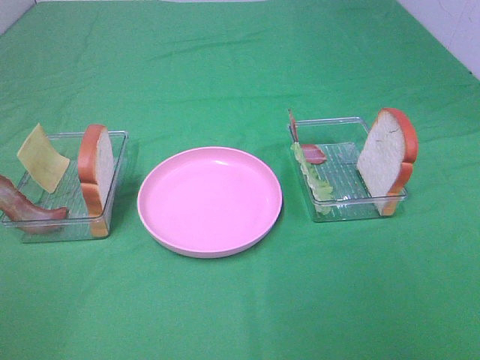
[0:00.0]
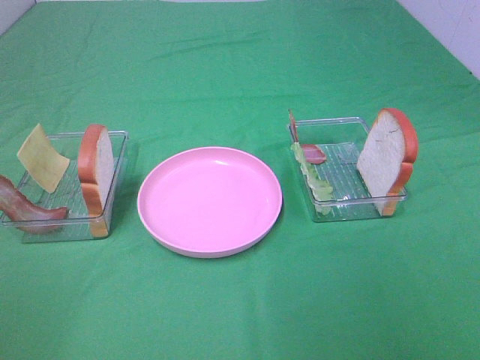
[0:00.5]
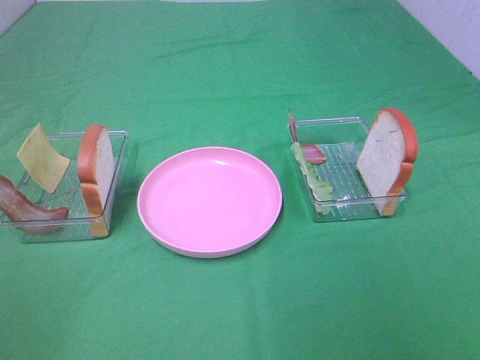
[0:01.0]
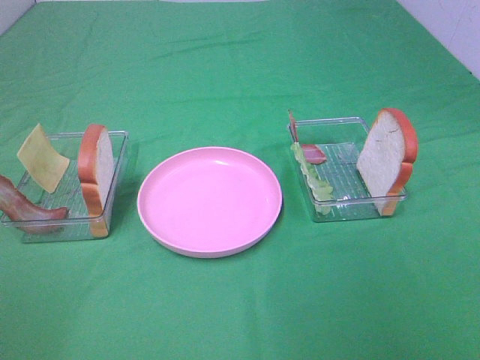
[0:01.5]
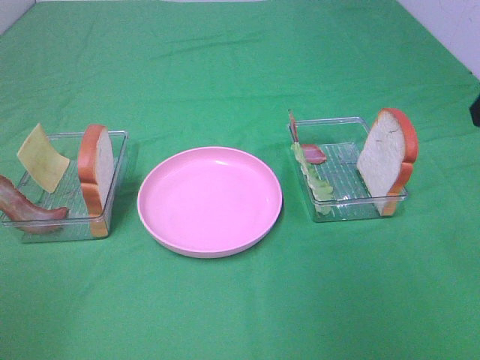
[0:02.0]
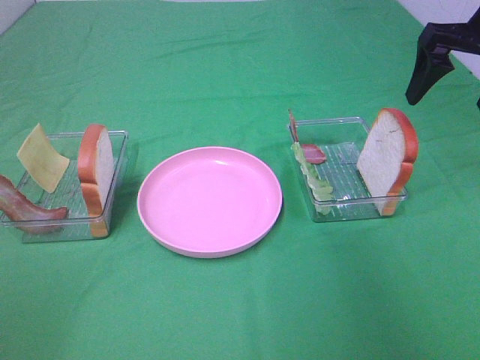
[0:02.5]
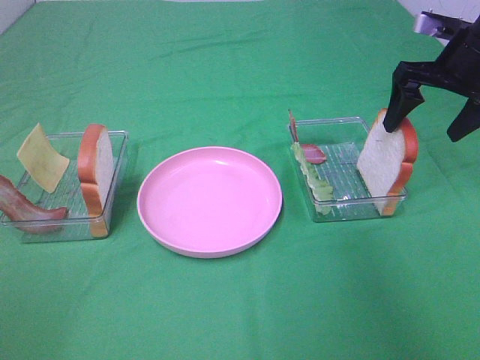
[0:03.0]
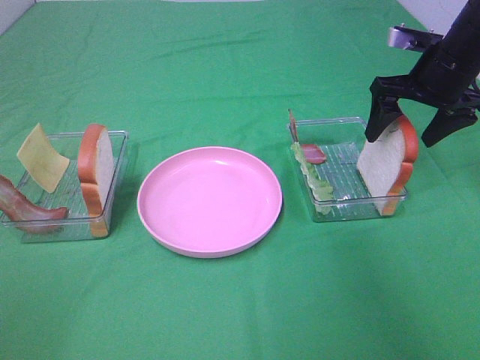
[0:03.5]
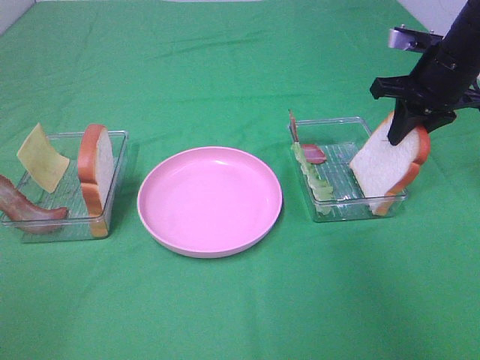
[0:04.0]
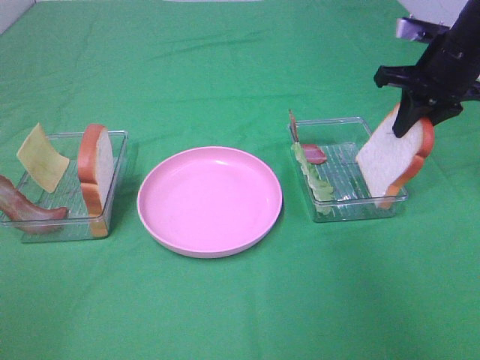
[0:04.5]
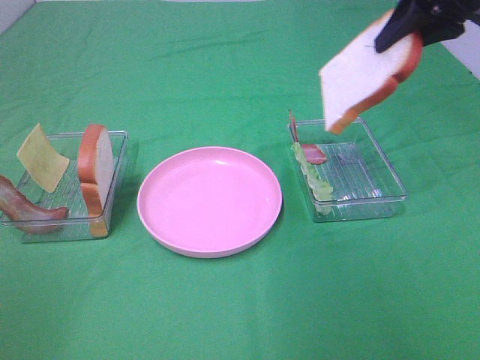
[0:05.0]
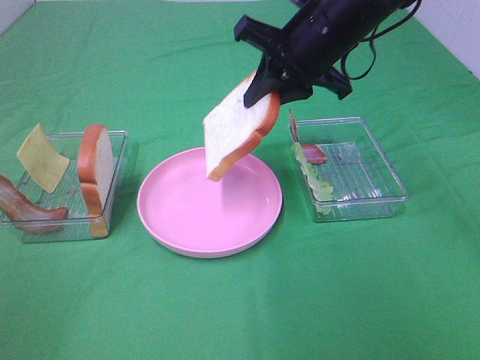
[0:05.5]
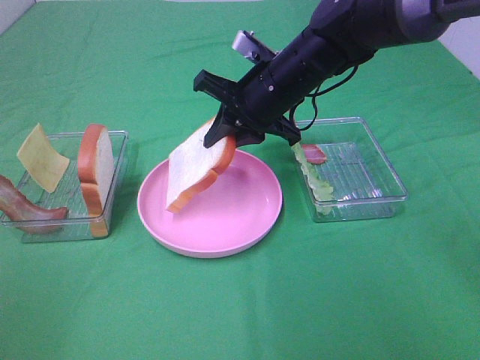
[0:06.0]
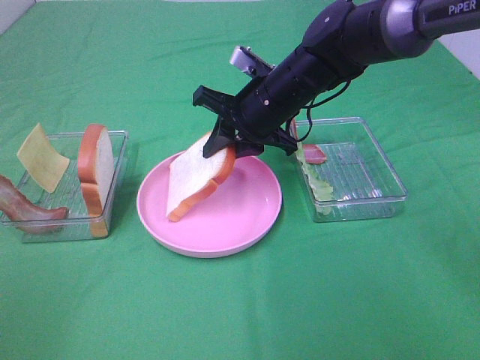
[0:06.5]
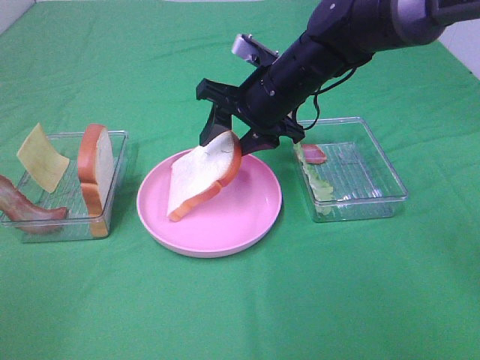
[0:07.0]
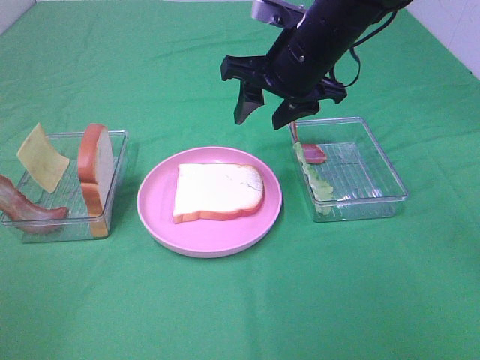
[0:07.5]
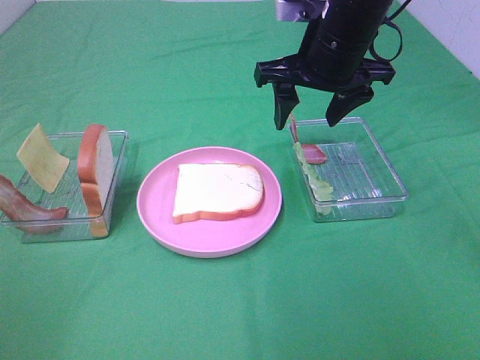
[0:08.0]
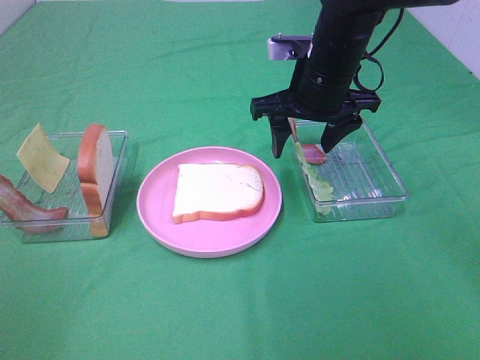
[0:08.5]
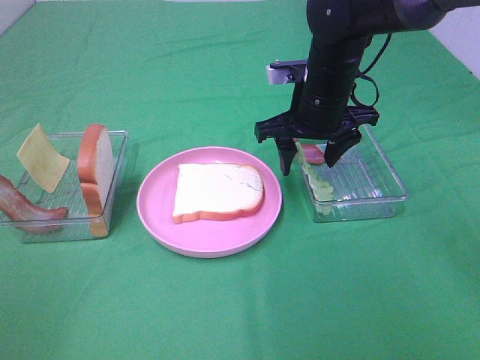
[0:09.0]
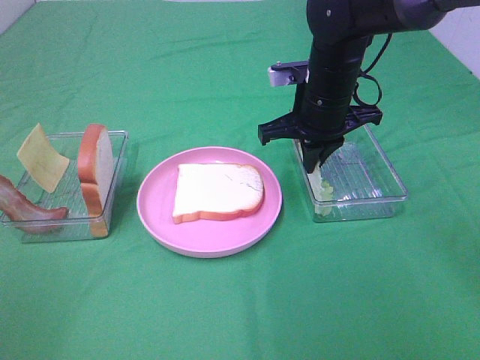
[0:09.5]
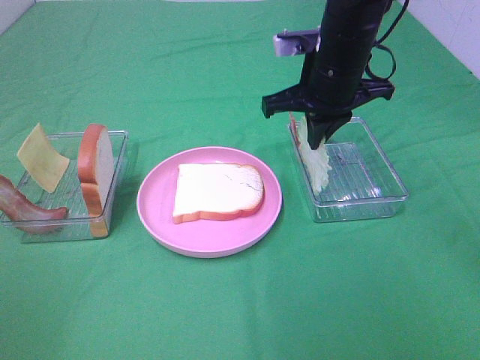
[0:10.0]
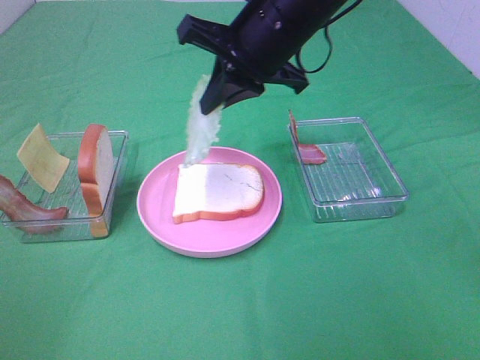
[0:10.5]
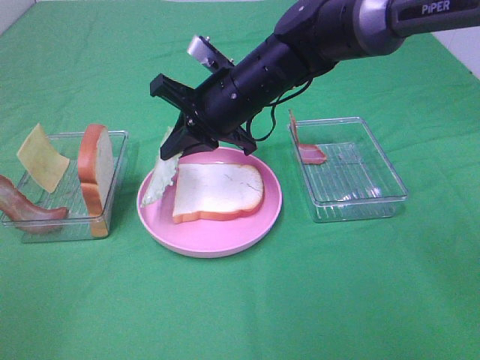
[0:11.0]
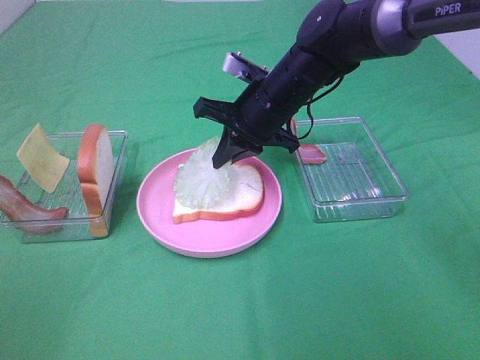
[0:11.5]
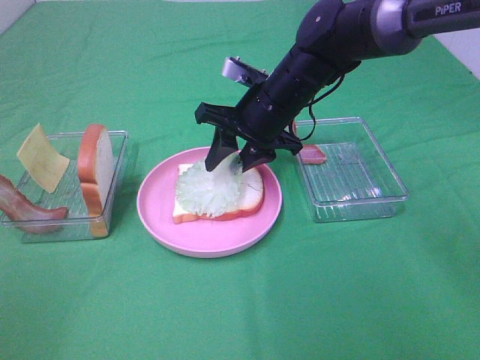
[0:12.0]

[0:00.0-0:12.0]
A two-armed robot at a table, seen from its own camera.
Task of the whole recording: Make sandwiches.
Step, 0:00.0 to 0:04.0: Right hand:grab the bread slice.
Step, 0:04.5 to 0:07.0: Right hand:place the bread slice on the plate.
Step, 0:07.5 to 0:09.5: Right hand:grab the lettuce slice.
0:02.0 to 0:04.0: The right gripper shifts about 25 cm forward and downward, and closes.
0:04.0 to 0:06.0: The right gripper is displaced to the left by approximately 20 cm.
0:06.0 to 0:08.0: The right gripper heads upward, covering roughly 5 cm, and opens up.
0:08.0 to 0:10.0: The right gripper moves some 10 cm downward and comes back, and closes.
0:10.0 to 0:12.0: The right gripper heads downward and to the left, covering roughly 10 cm, and opens up.

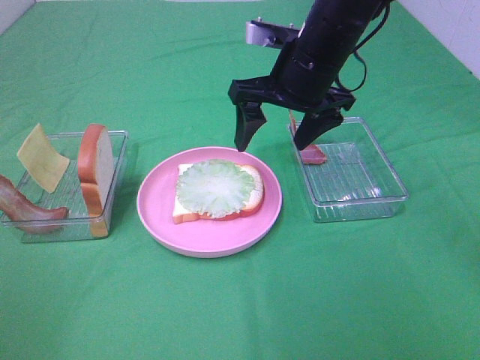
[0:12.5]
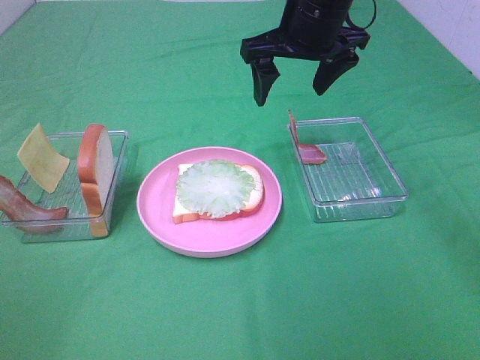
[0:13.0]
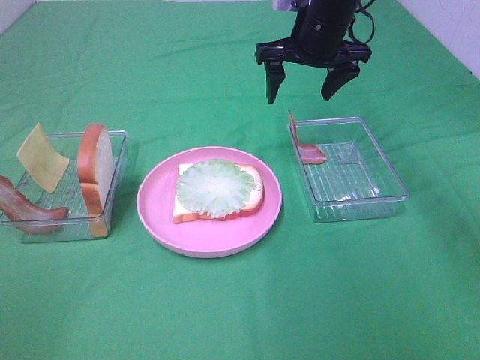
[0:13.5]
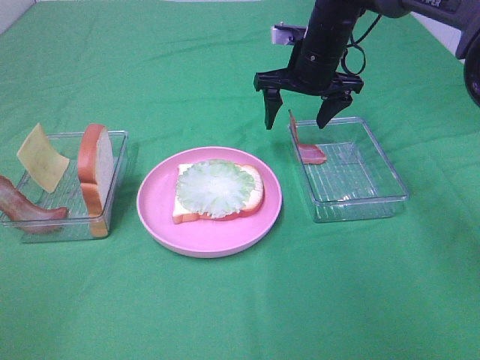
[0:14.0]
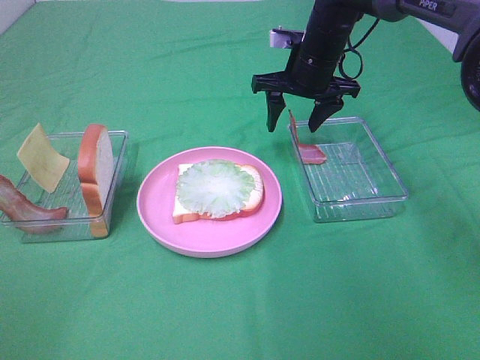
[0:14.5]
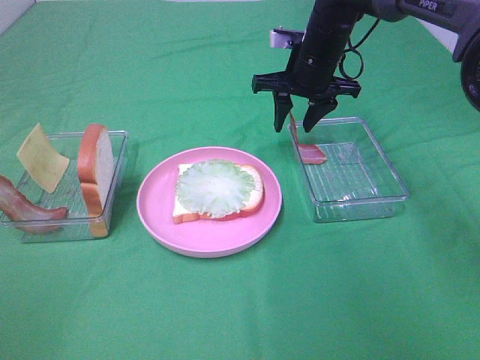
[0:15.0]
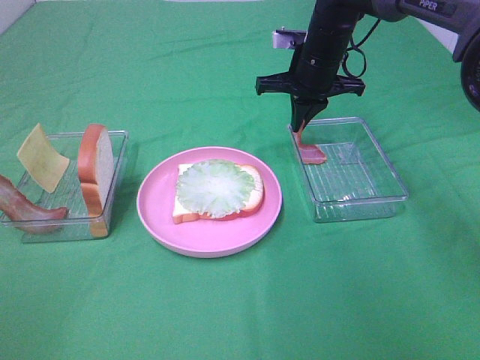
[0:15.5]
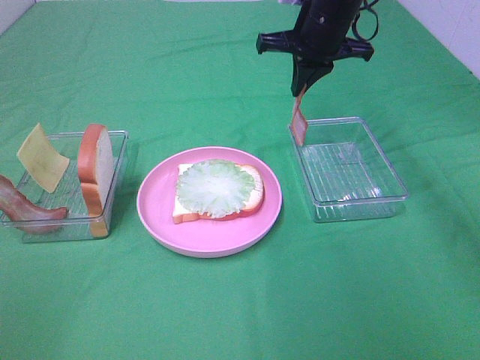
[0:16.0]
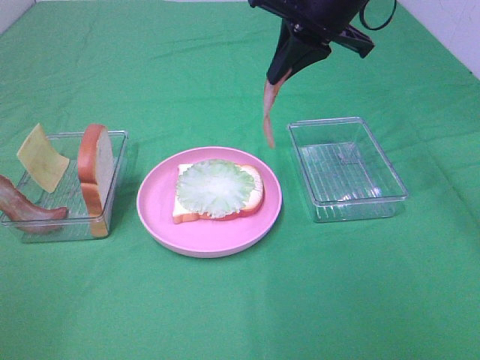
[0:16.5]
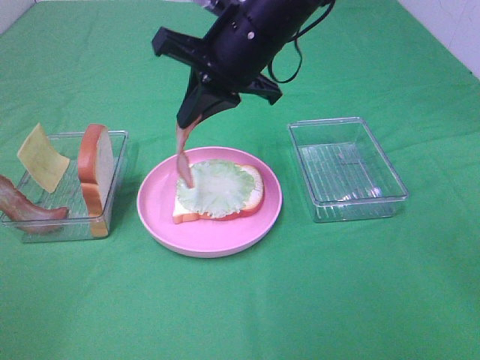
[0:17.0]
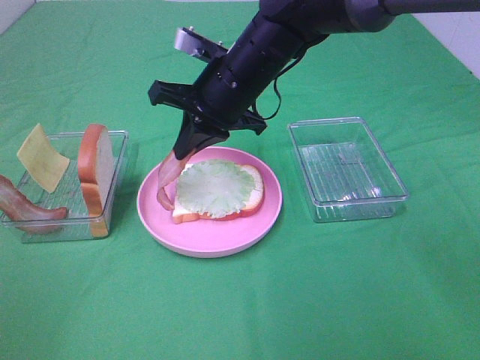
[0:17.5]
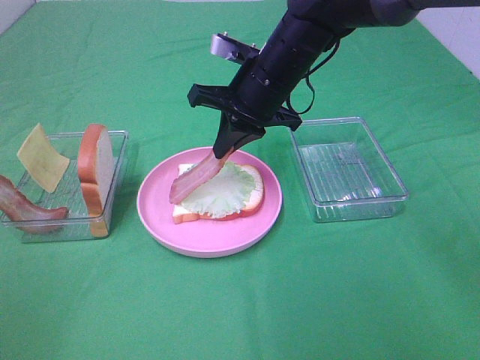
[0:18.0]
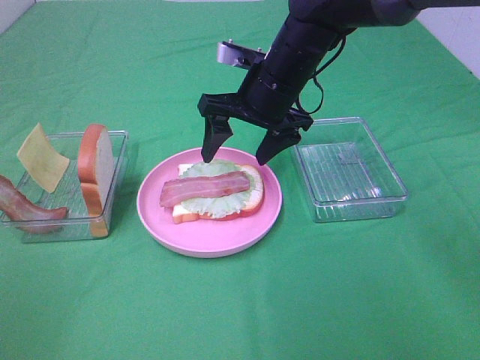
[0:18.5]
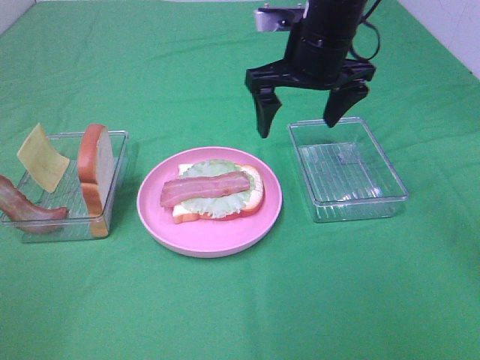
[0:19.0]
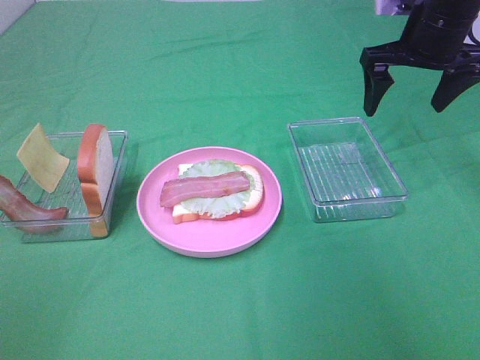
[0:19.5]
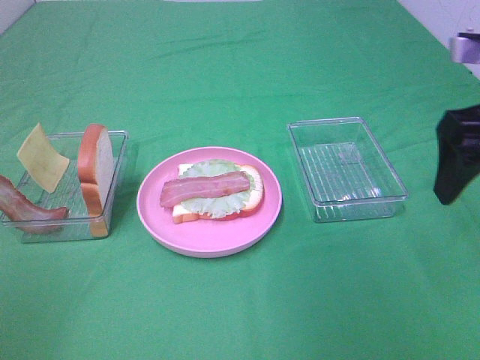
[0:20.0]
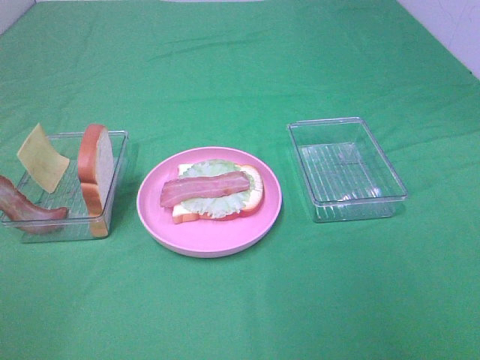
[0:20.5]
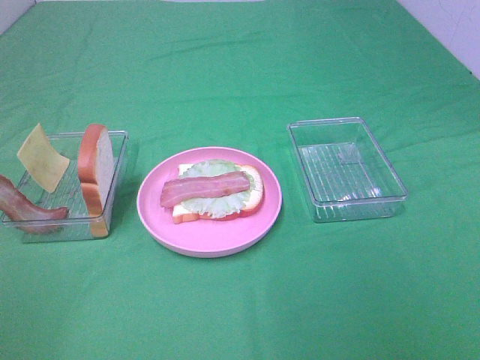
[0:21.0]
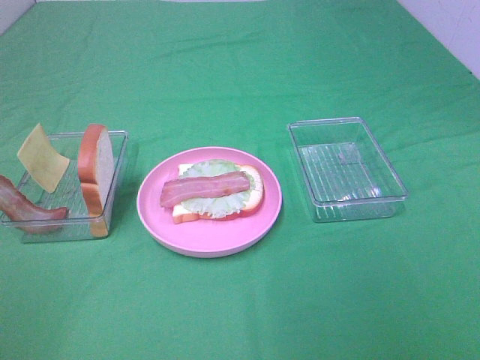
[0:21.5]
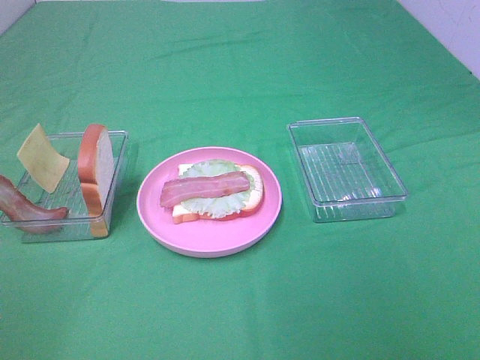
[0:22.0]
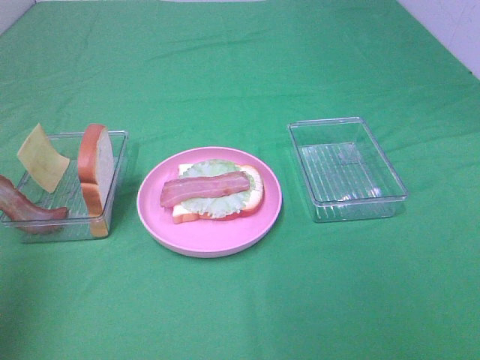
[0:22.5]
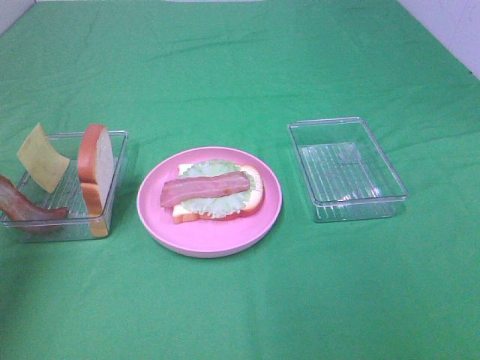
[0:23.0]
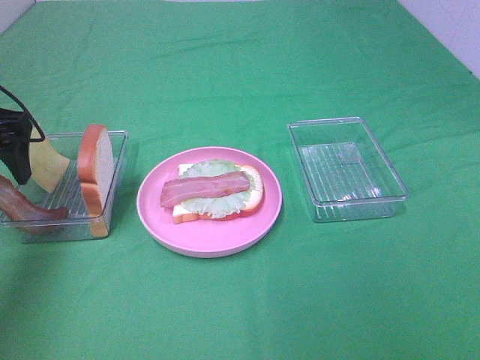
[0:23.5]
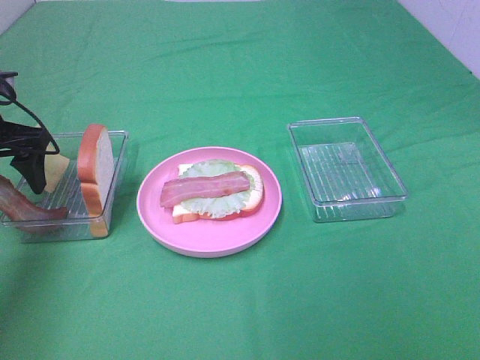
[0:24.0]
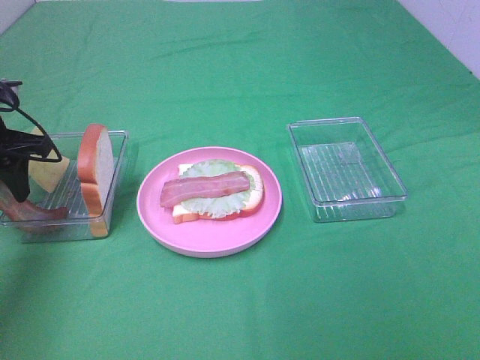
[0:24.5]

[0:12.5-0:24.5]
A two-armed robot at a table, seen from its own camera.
Task of the whole recording: Make sandwiches.
Step, 0:12.5 to 0:15.5: Right hand:grab the bacon.
Step, 0:16.0 to 0:18.0: Right hand:place bacon on lettuce slice.
0:12.5 to 0:14.5: The right gripper is displaced forward and downward by roughly 10 cm.
0:14.5 to 0:16.5: The right gripper goes approximately 15 cm upward and backward, and closes.
0:16.5 to 0:18.5: The right gripper moves downward and to the left, roughly 10 cm, and opens its fingers.
0:18.5 to 0:20.5: The right gripper shifts roughly 40 cm backward and to the right.
0:20.5 to 0:22.5: The left gripper shifts roughly 20 cm forward and upward.
0:22.5 to 0:24.5: The left gripper shifts roughly 30 cm forward and downward, and closes its fingers.

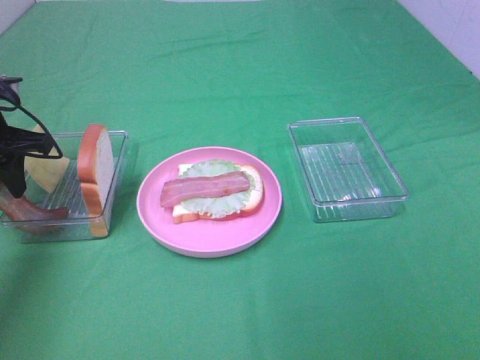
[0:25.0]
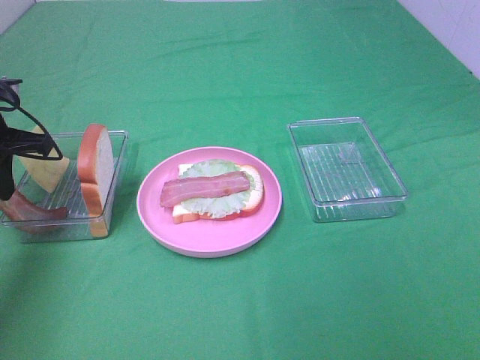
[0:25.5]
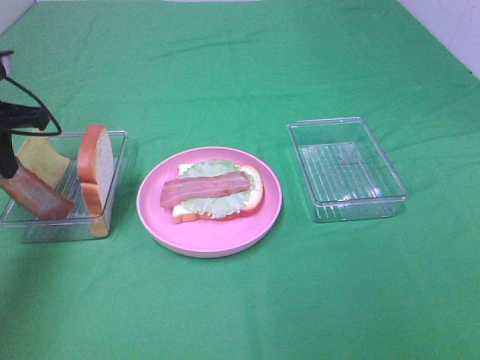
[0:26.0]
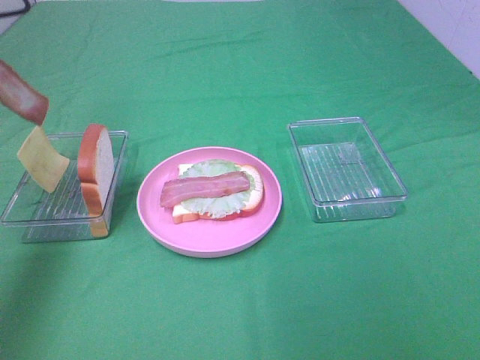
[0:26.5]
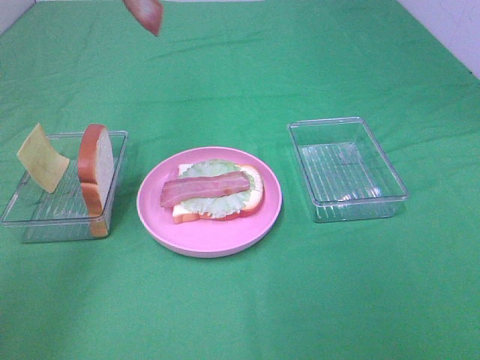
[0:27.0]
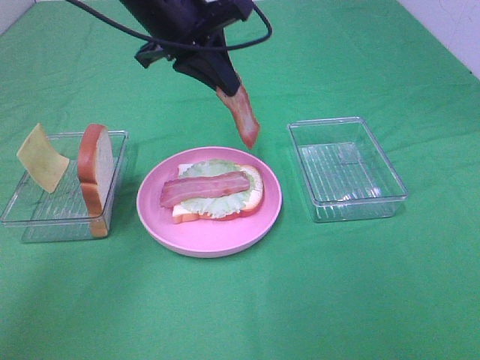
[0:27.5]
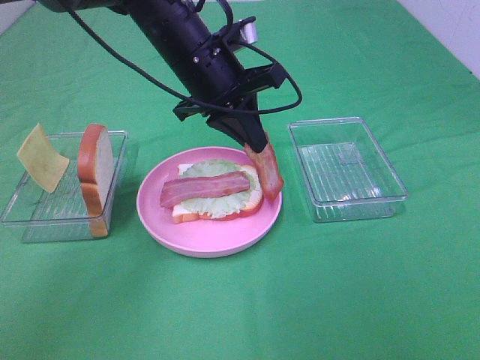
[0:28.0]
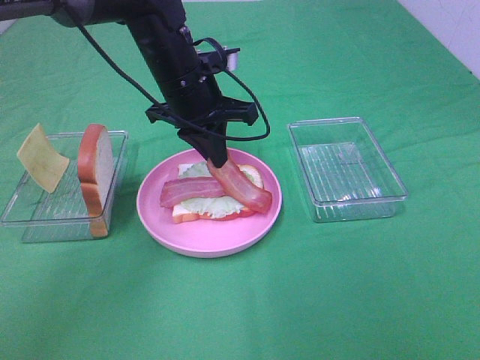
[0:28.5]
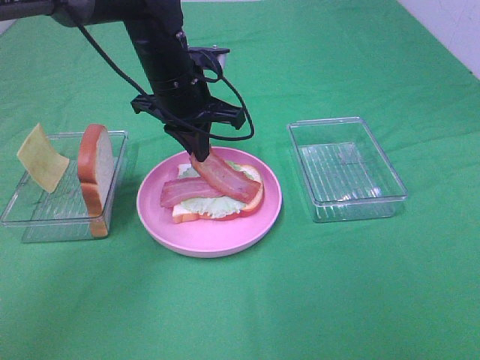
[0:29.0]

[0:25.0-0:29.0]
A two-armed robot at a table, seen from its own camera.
Task of the whole recording: Make sandwiches.
0:25.0 to 0:27.0: The left gripper shifts about 25 cm upward and to the right, and closes its fingers.
0:27.0 to 0:29.0: The left gripper travels downward and to the right by about 25 cm.
